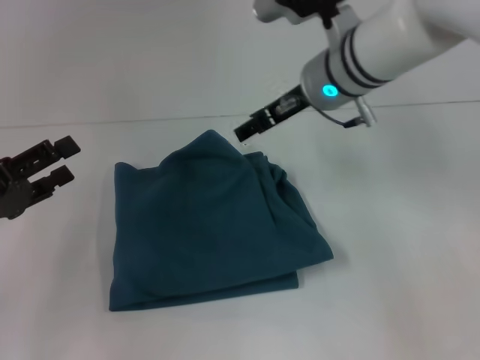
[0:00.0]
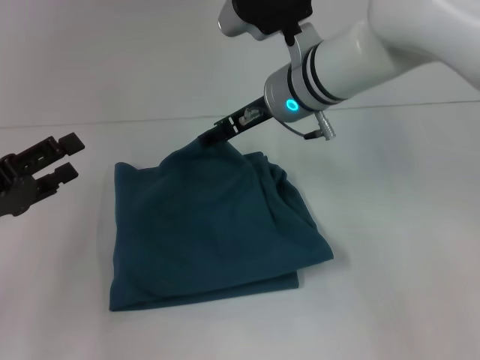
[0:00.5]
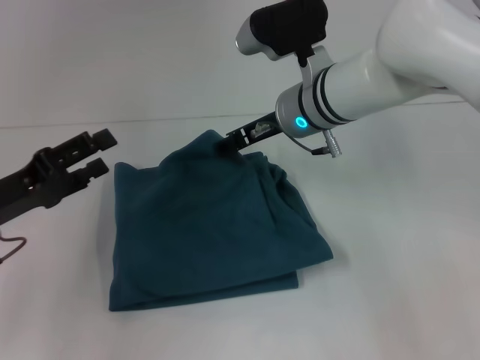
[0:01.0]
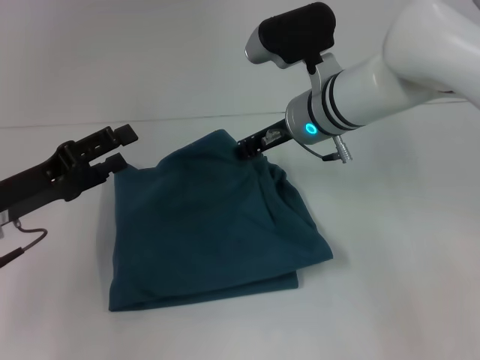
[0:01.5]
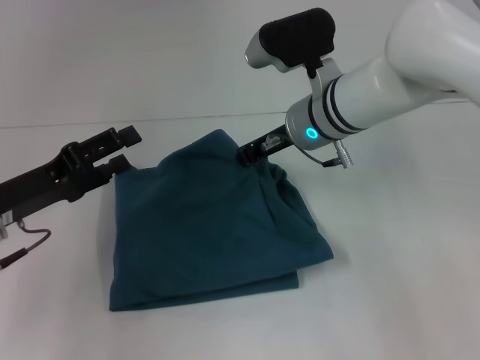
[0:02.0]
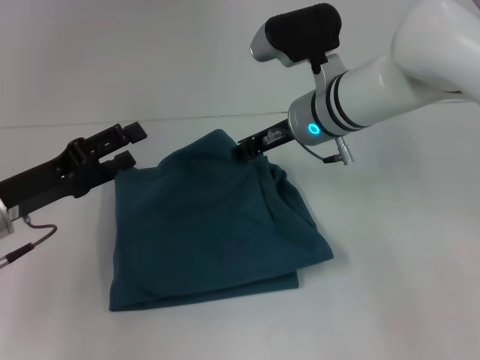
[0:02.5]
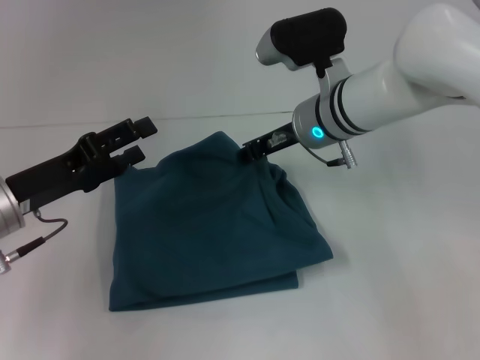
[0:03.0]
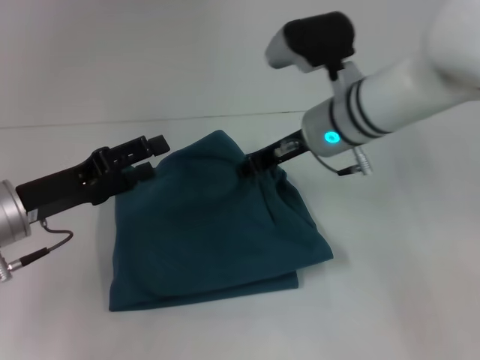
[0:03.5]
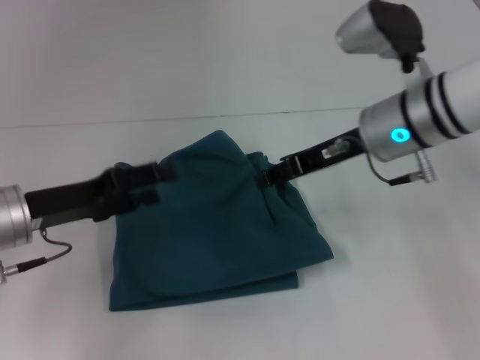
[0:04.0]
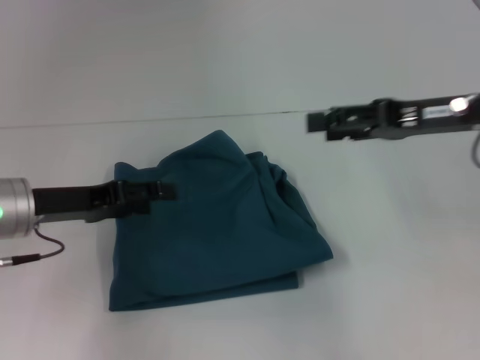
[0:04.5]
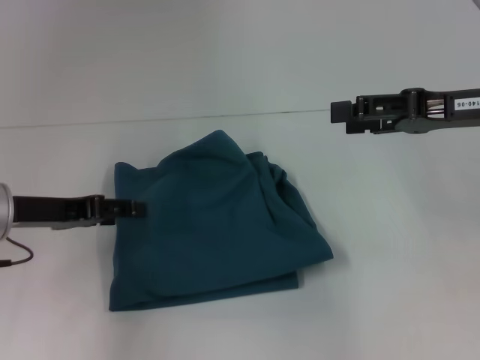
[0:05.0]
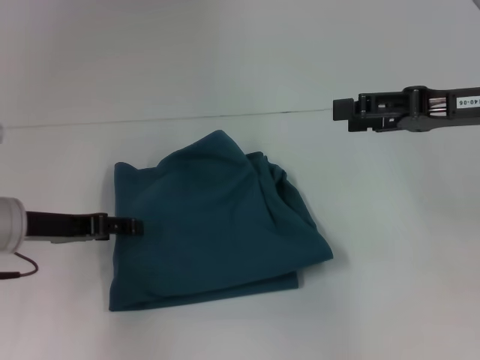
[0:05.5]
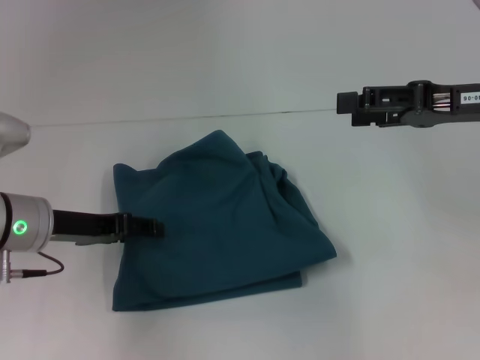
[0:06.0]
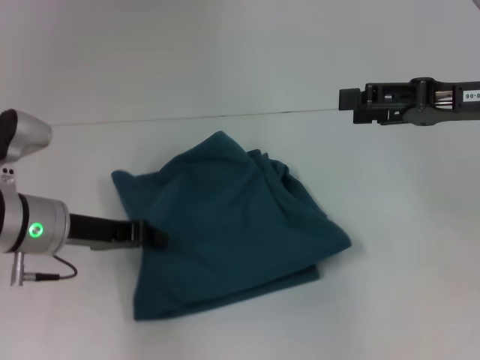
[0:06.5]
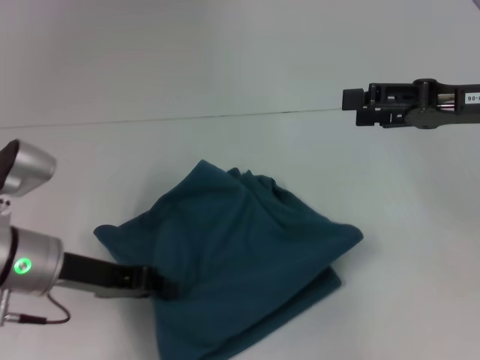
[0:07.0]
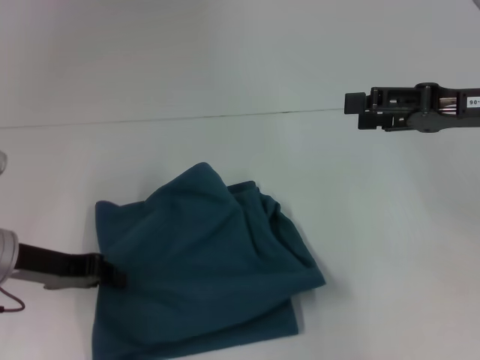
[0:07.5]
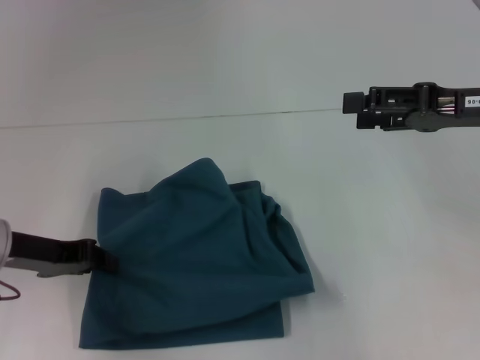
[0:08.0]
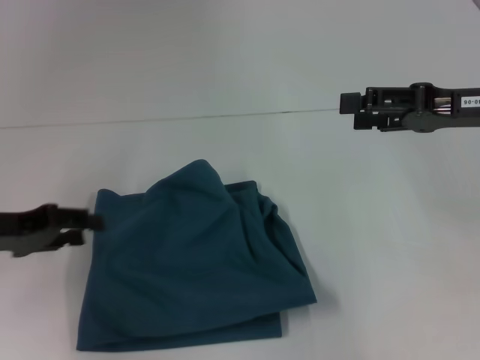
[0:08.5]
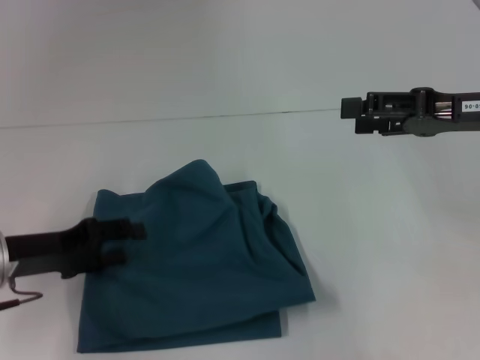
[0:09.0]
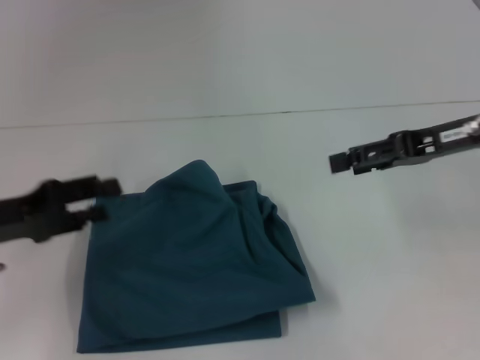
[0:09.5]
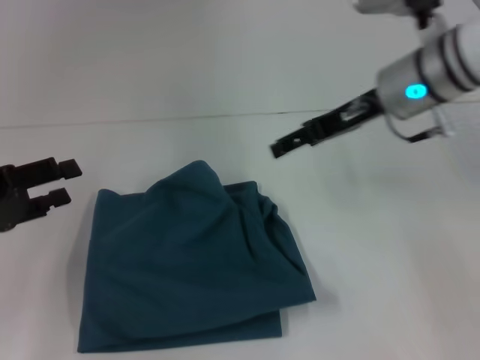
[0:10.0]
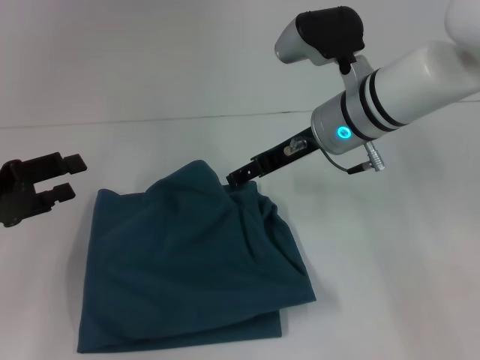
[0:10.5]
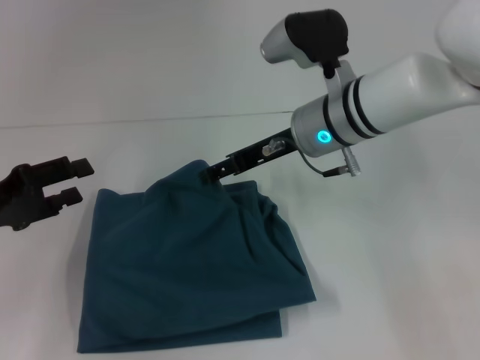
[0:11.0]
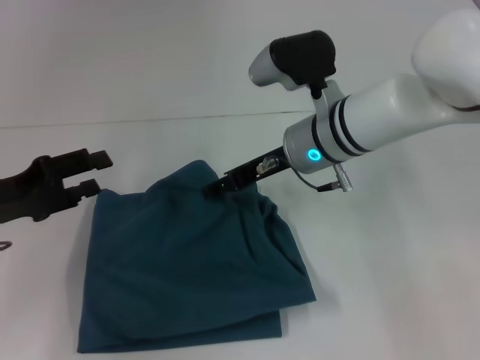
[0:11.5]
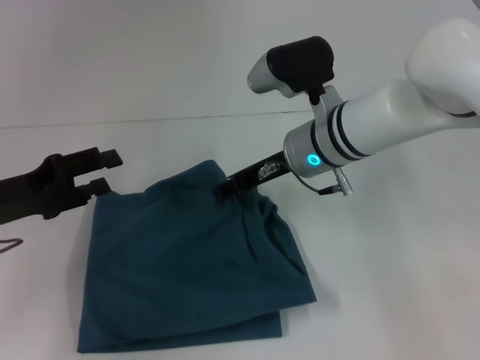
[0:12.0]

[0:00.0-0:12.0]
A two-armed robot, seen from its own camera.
0:00.0 to 0:02.0: The left gripper changes place by some 5 cm, while the right gripper travels downward by about 5 cm, and closes.
0:02.0 to 0:04.0: The right gripper heads to the right, covering about 5 cm.
0:04.0 to 0:06.0: The right gripper heads to the right, covering roughly 10 cm, and opens up.
0:06.0 to 0:08.0: The left gripper closes up.
0:08.0 to 0:10.0: The right gripper is displaced to the left and forward by some 15 cm. The left gripper heads to the left, covering roughly 5 cm, and opens up.
0:10.0 to 0:12.0: The right gripper heads to the left and downward, covering some 10 cm.

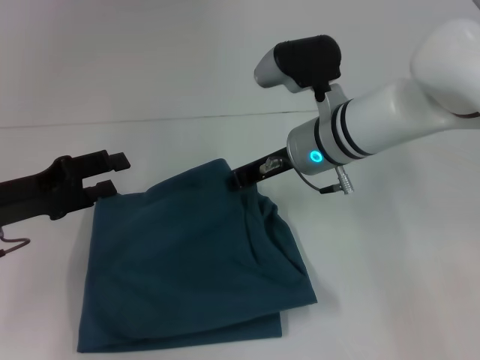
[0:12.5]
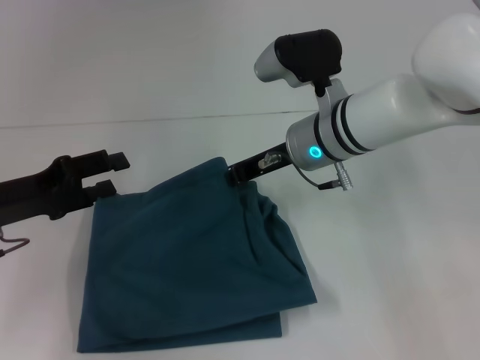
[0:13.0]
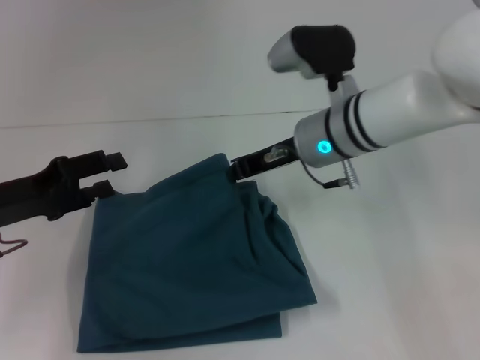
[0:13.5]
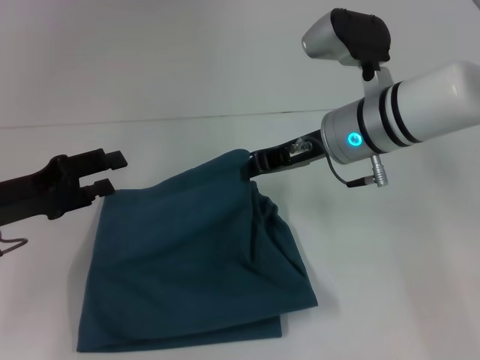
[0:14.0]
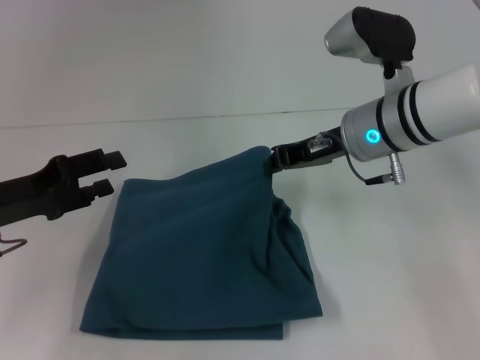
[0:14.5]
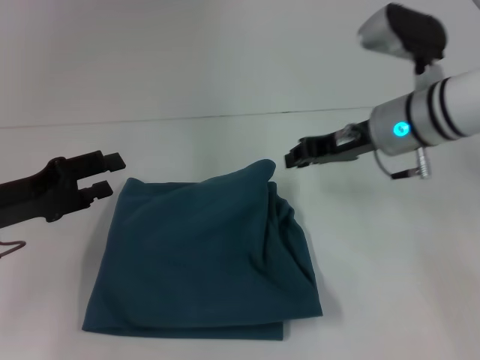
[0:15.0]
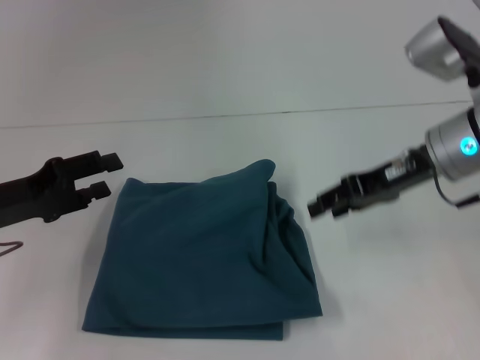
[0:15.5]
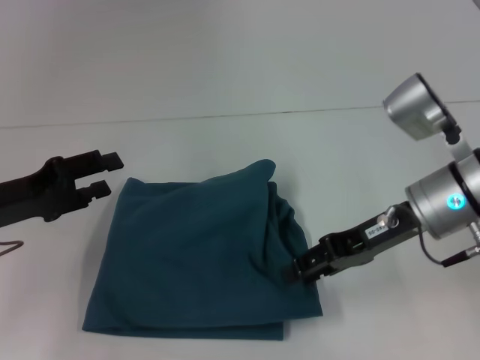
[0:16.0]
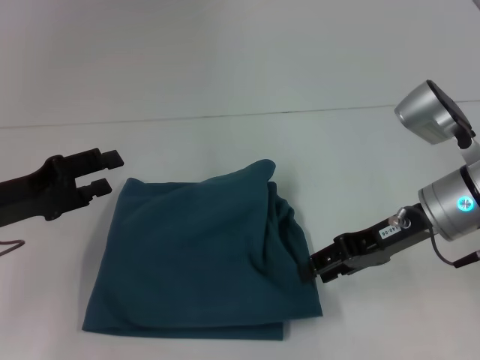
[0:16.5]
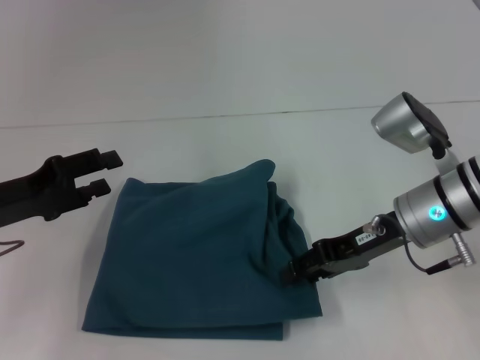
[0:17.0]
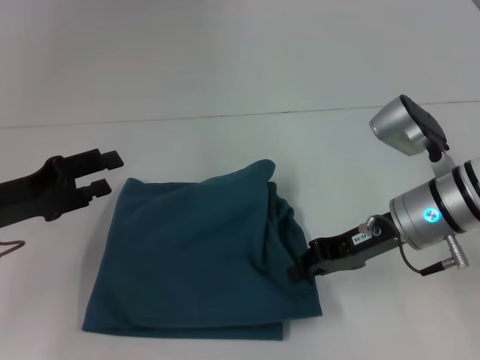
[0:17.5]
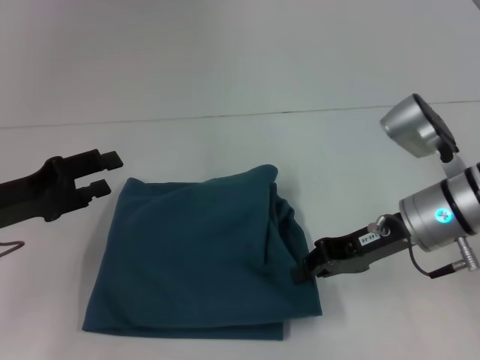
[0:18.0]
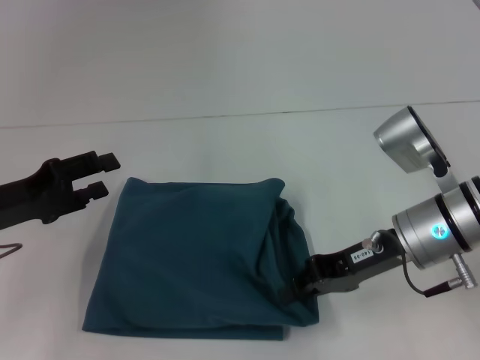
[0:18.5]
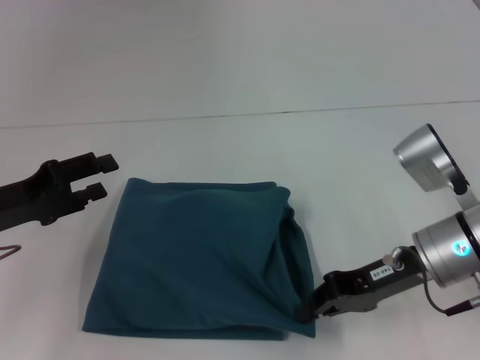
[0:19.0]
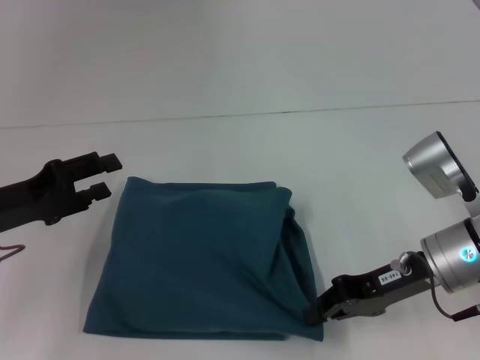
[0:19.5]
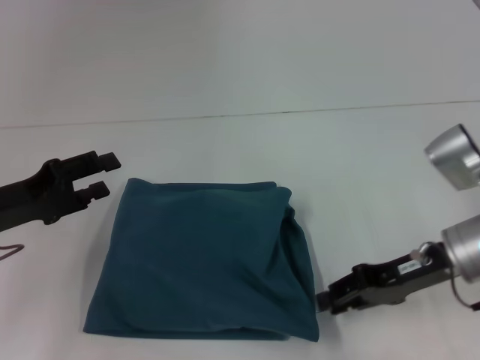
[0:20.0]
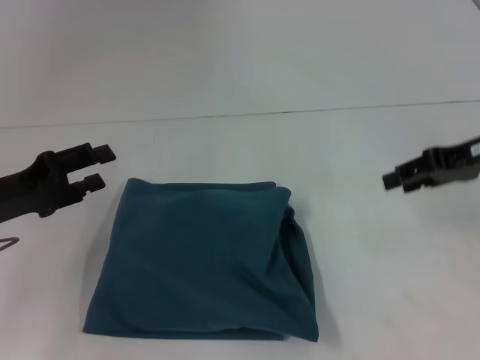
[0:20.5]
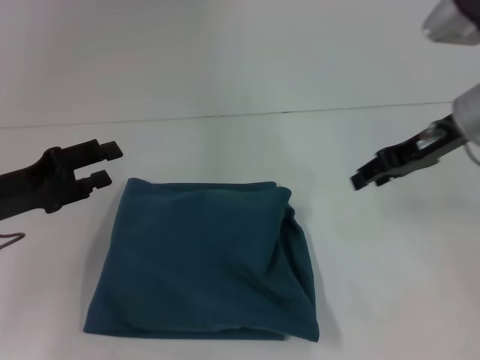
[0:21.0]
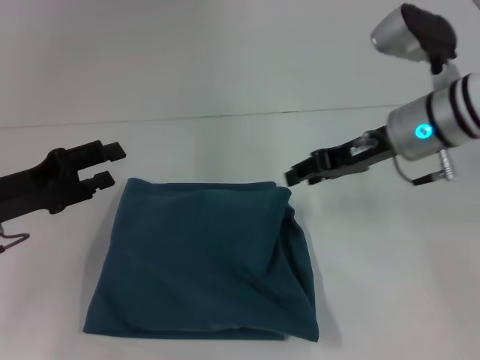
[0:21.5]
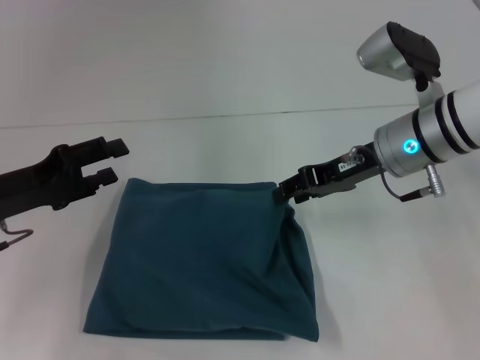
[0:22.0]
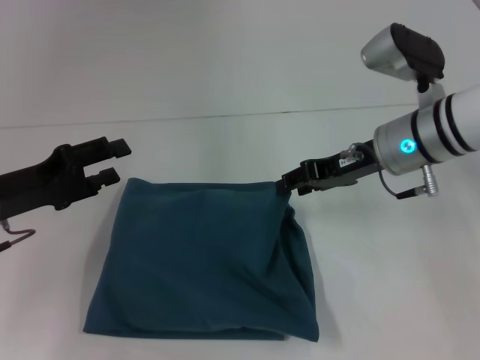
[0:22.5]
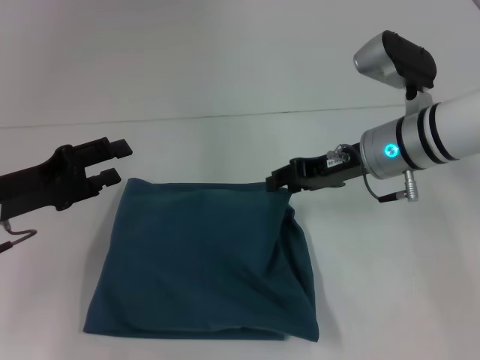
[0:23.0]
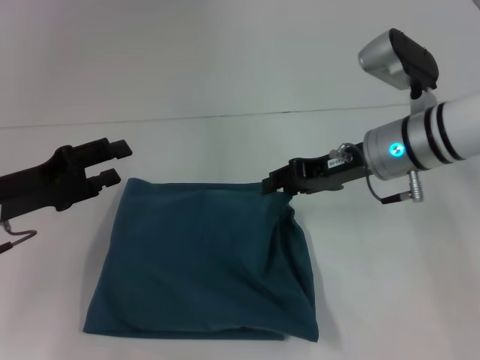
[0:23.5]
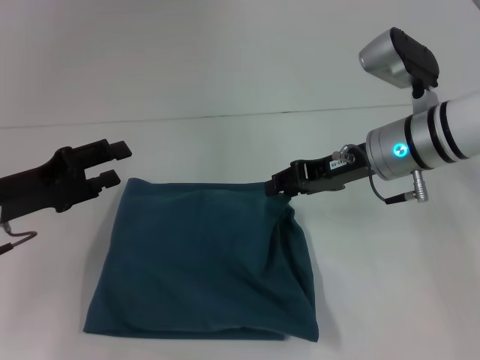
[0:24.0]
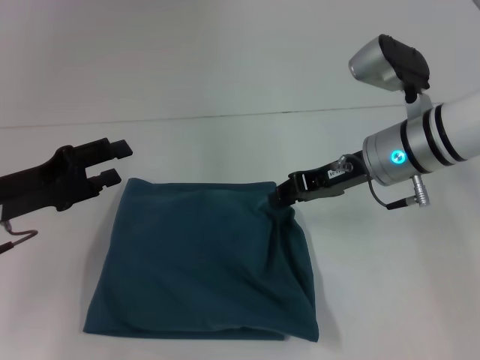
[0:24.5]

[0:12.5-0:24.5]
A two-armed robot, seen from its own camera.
0:12.5 to 0:14.5: The right gripper goes roughly 5 cm to the right.
0:14.5 to 0:16.5: The right gripper travels to the right and backward by approximately 10 cm, and opens.
0:16.5 to 0:18.5: The right gripper closes its fingers.
0:18.5 to 0:20.5: The right gripper goes roughly 15 cm to the right and upward, and opens its fingers.
0:20.5 to 0:22.5: The right gripper is displaced to the left by approximately 10 cm.
0:22.5 to 0:24.5: The grippers move only a little.

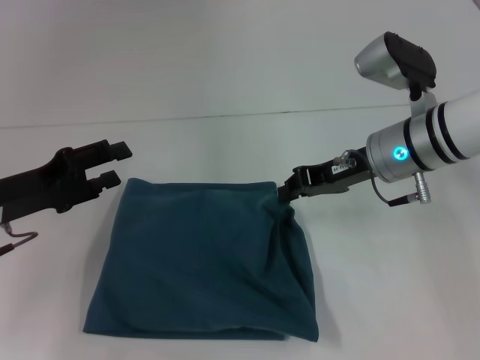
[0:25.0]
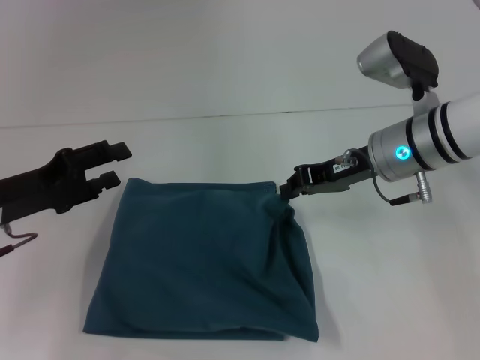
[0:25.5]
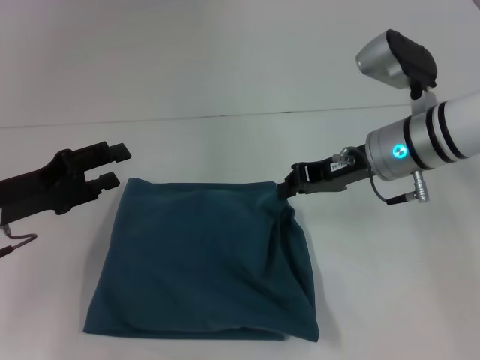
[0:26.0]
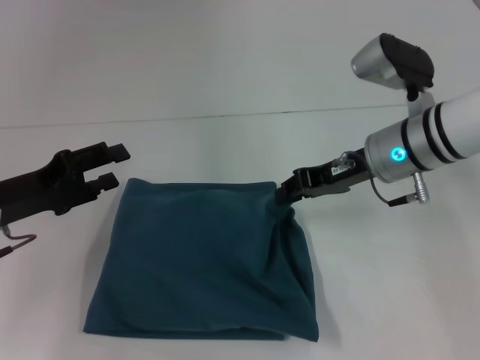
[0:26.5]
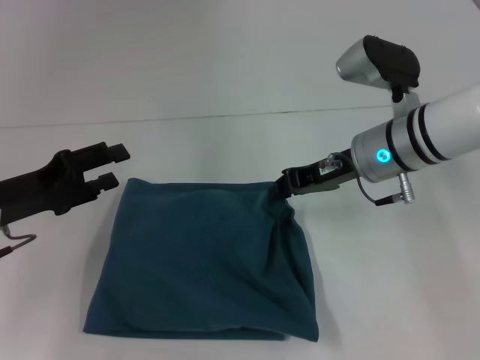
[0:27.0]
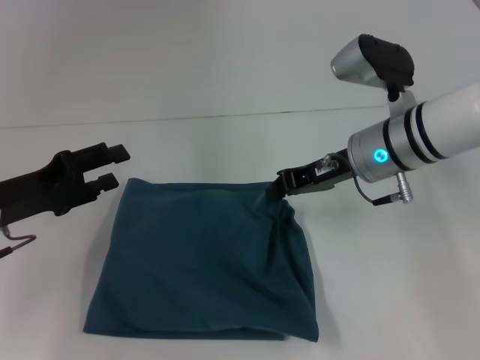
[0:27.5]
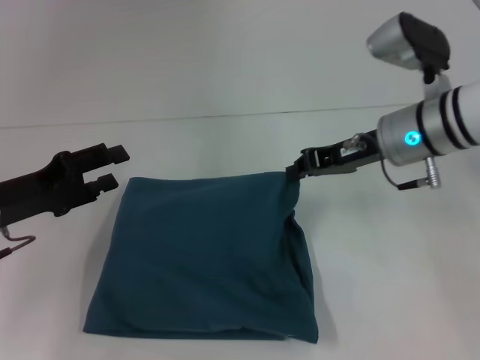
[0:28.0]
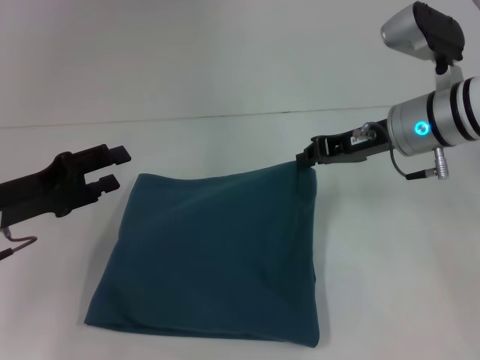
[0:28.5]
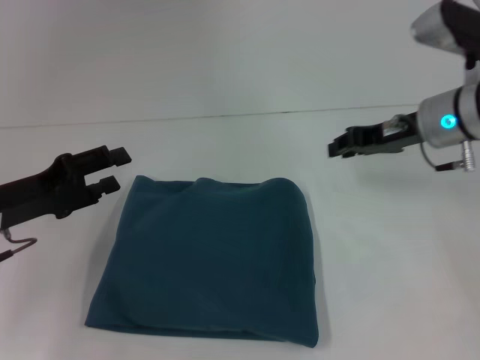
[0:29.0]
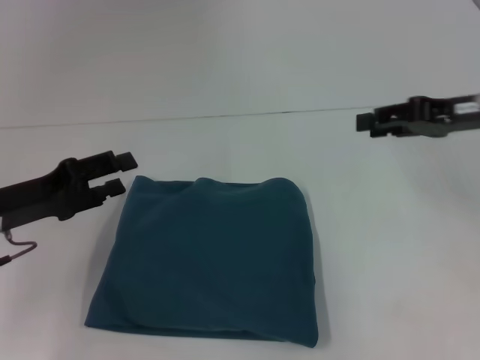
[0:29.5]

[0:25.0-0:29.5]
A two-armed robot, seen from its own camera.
0:25.0 to 0:27.0: The grippers move only a little.
0:27.0 to 0:29.5: The right gripper goes approximately 15 cm to the right and upward.
